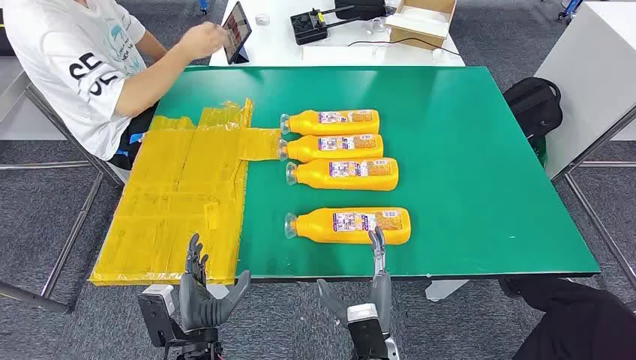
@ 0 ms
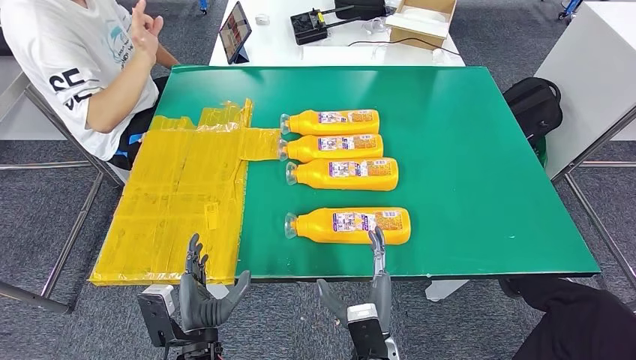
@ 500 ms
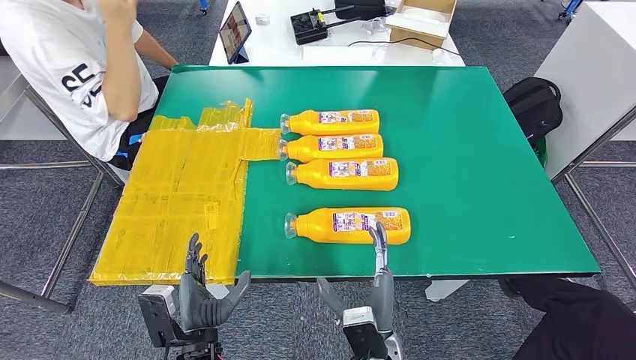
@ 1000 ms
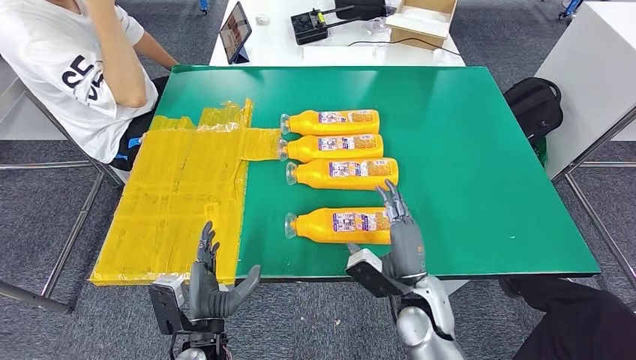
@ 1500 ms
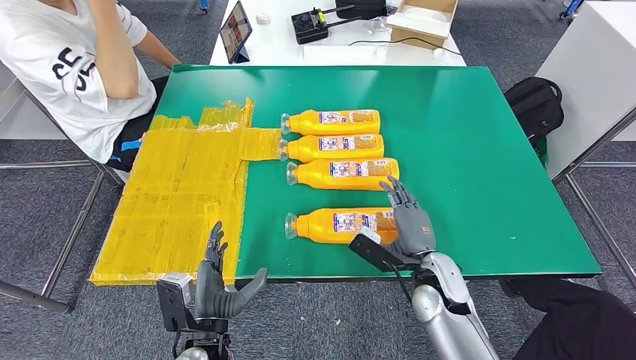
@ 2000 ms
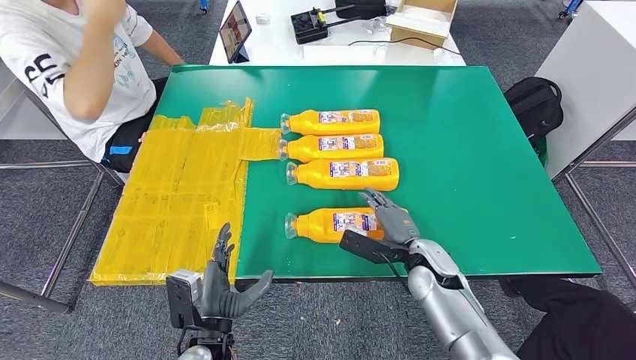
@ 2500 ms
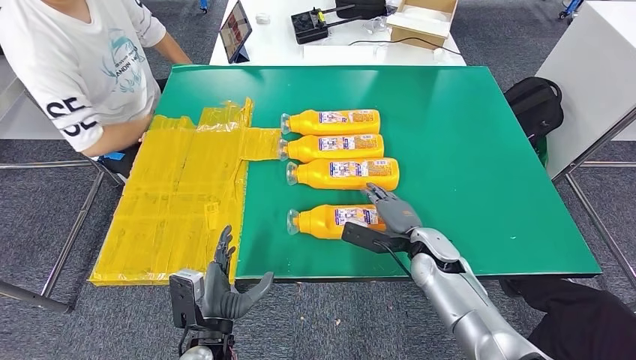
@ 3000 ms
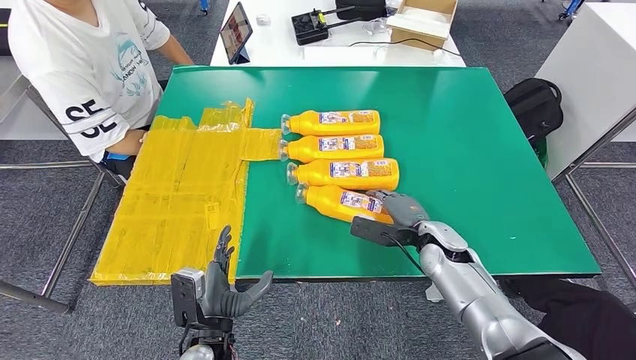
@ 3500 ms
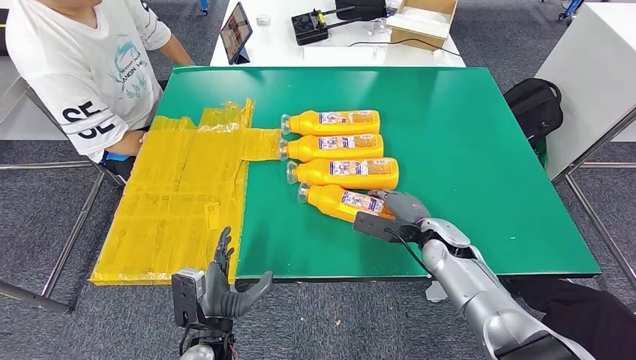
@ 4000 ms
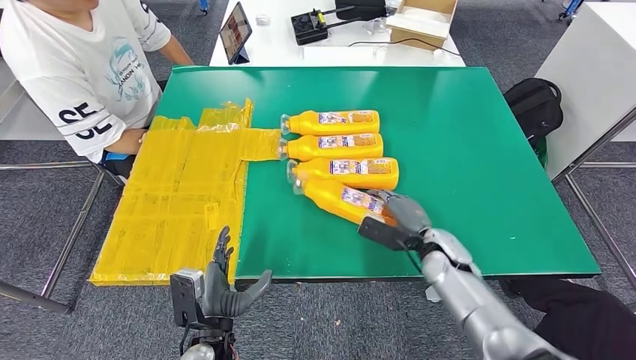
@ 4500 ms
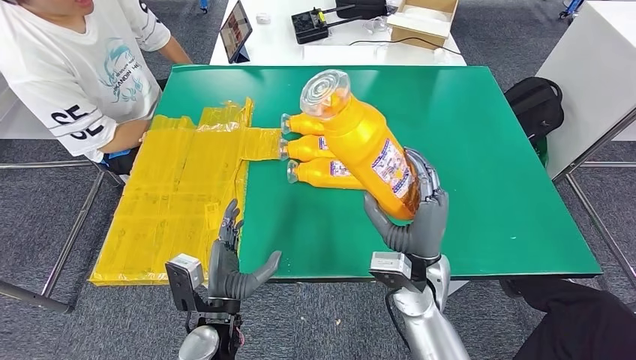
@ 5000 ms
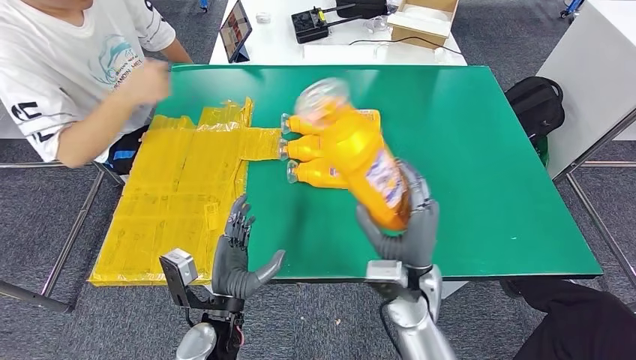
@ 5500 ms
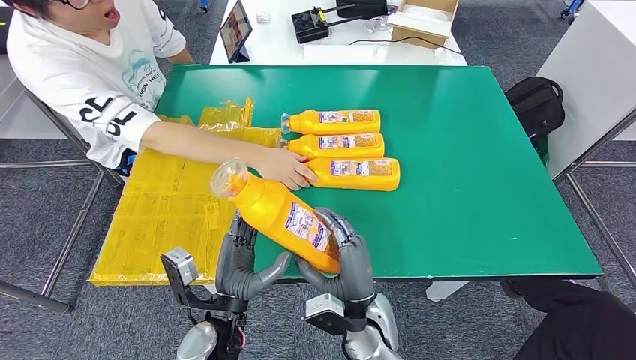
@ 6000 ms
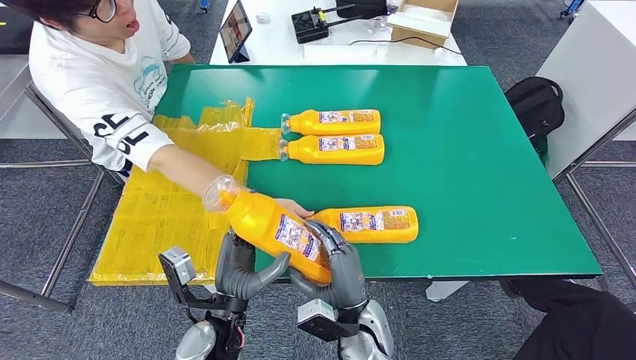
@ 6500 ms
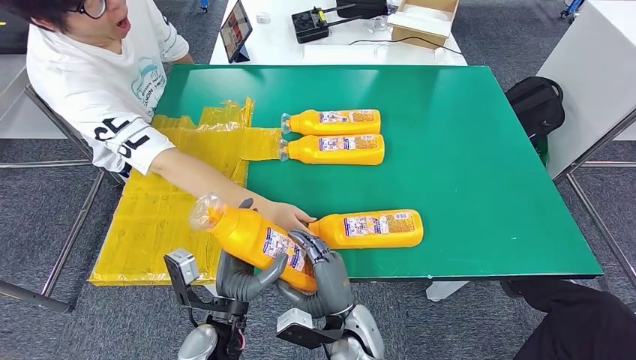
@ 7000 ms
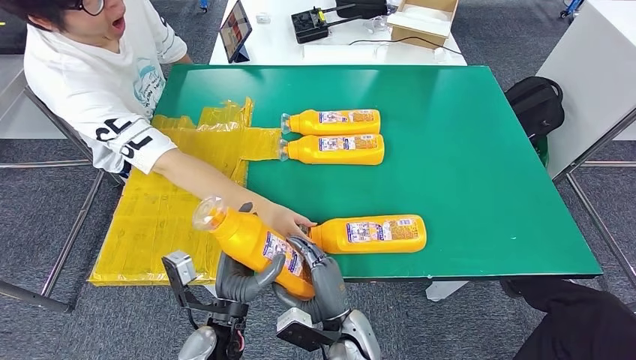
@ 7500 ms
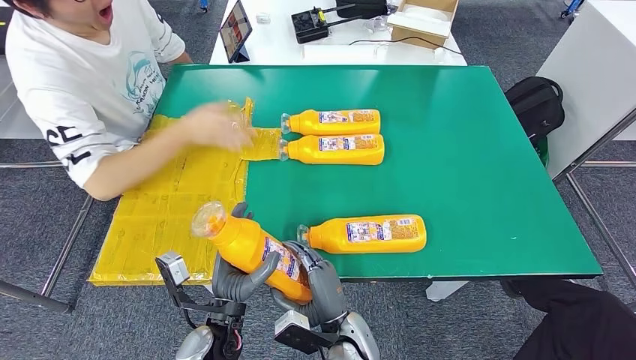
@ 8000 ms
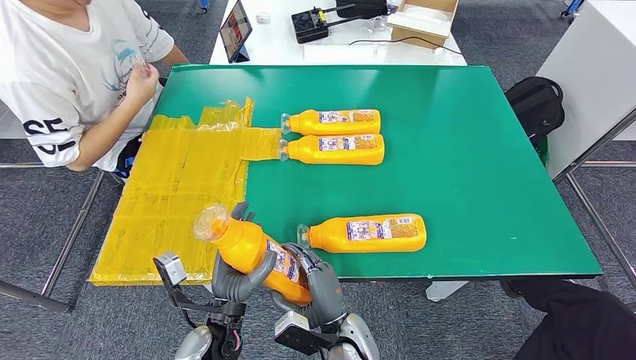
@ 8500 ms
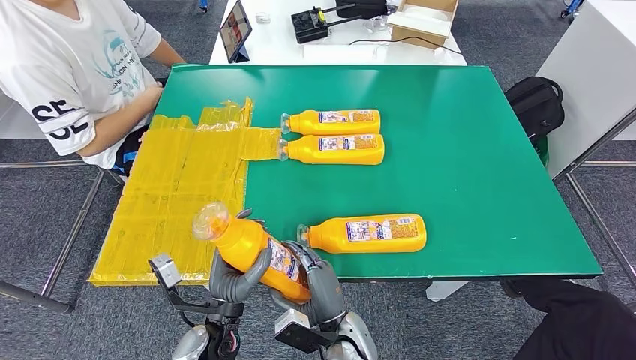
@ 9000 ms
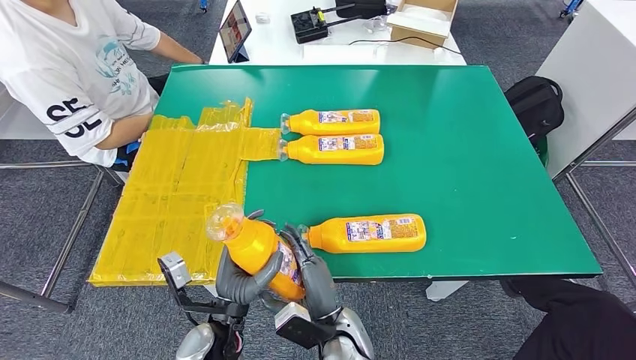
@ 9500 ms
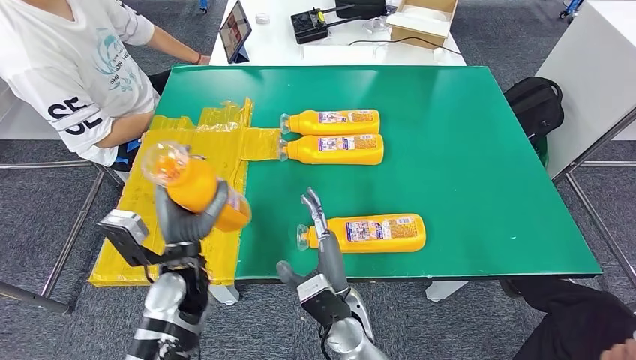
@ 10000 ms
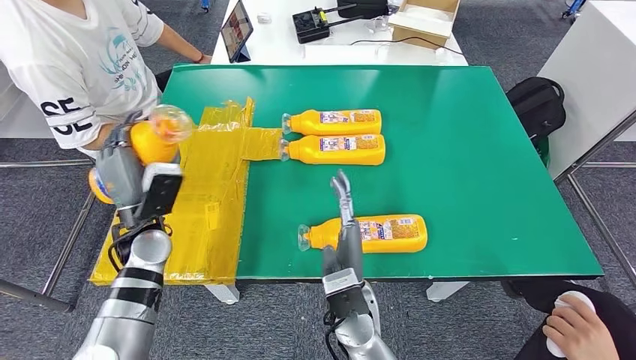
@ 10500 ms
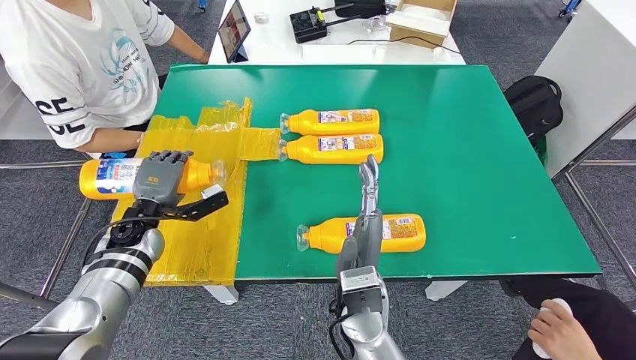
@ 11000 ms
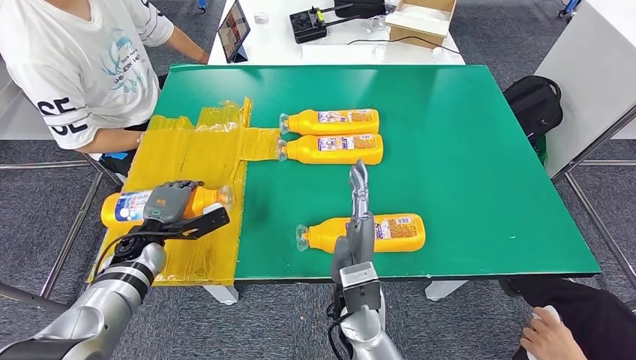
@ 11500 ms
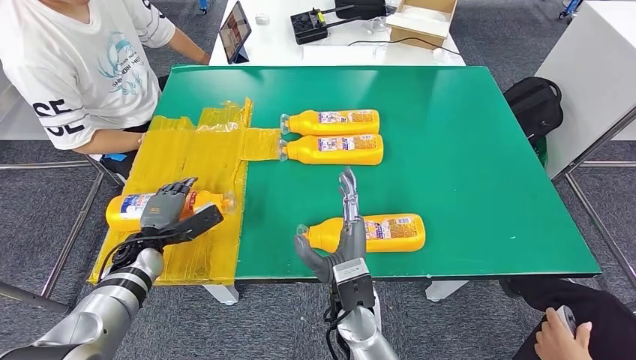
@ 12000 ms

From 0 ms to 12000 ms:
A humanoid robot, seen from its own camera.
Step, from 0 ms to 6000 ms: Take the fast-moving consumer goods bottle from the table.
Step, from 6500 ms to 11500 ms: Flip the fast-moving consumer goods bottle to the front side.
From 2000 ms to 4000 ms: The right hand goes some 10 cm forward.
From 6000 ms to 8000 ms: The right hand shifts by about 5 cm.
From 10000 ms to 12000 ms: The left hand is displaced to the left, downward and forward by some 20 cm.

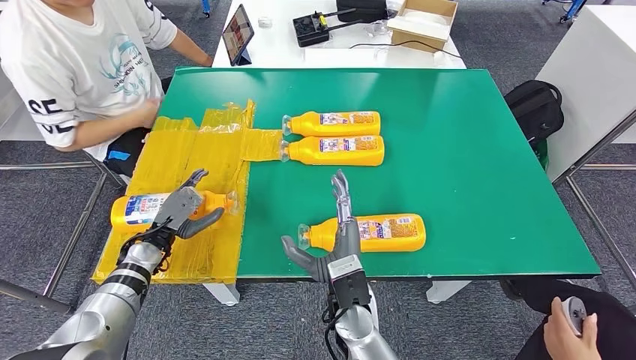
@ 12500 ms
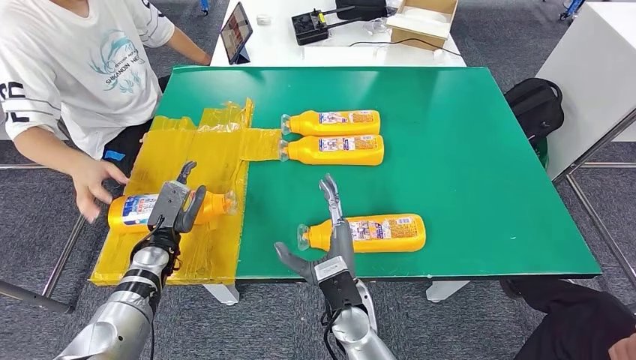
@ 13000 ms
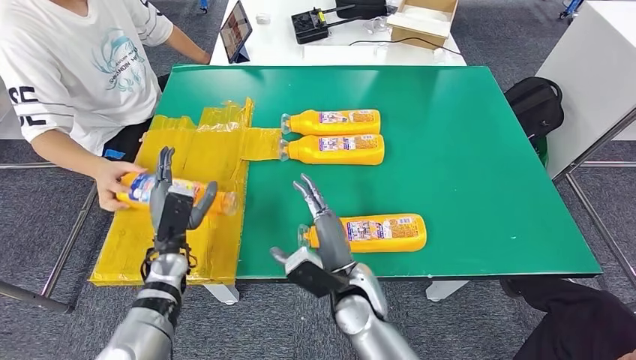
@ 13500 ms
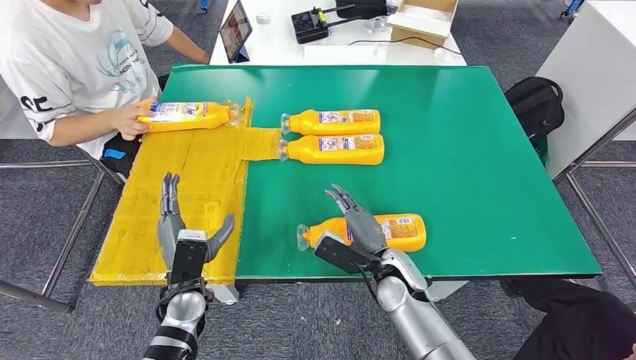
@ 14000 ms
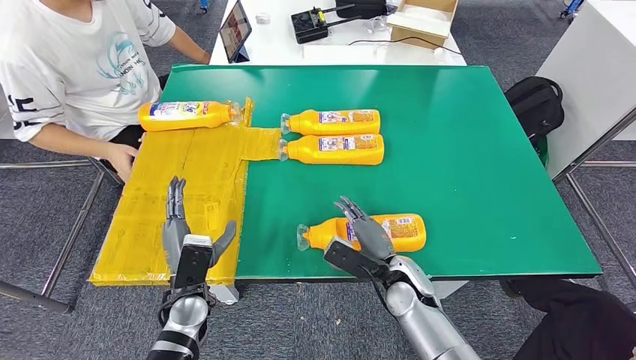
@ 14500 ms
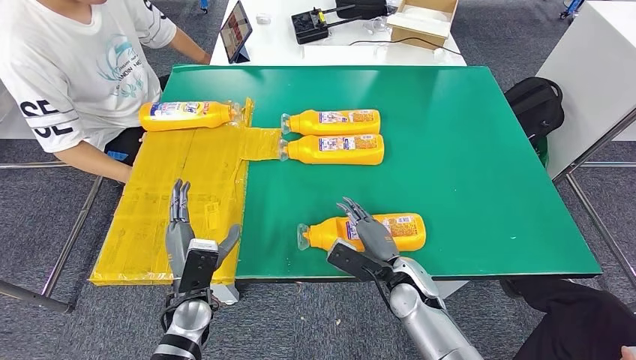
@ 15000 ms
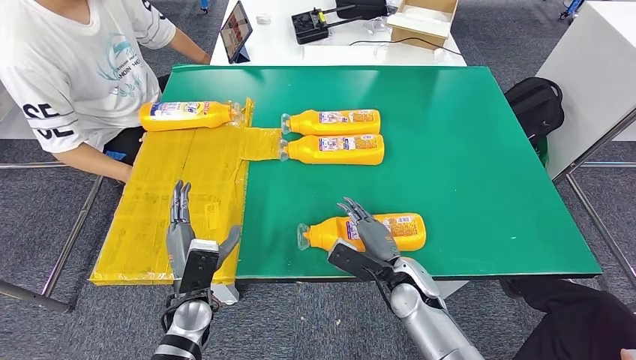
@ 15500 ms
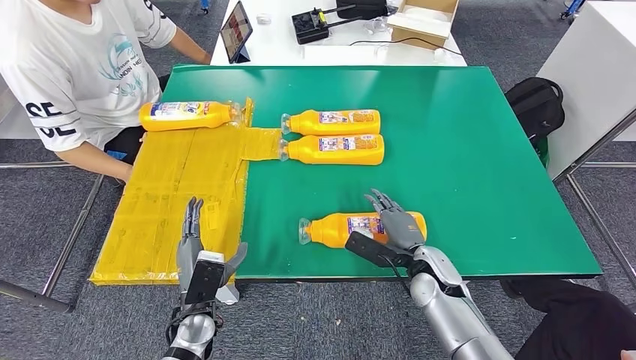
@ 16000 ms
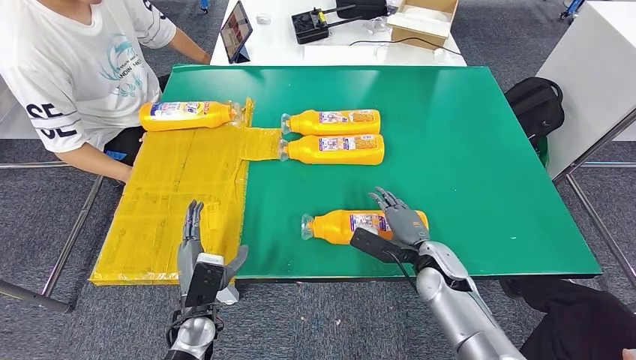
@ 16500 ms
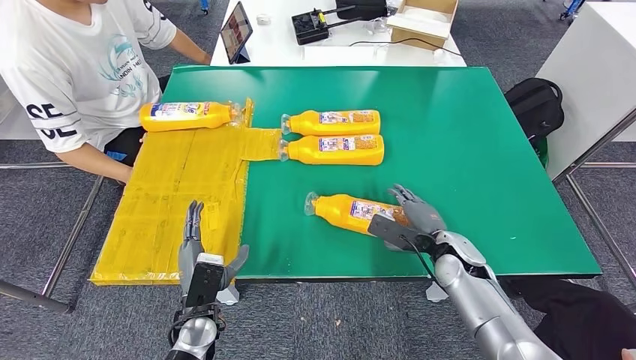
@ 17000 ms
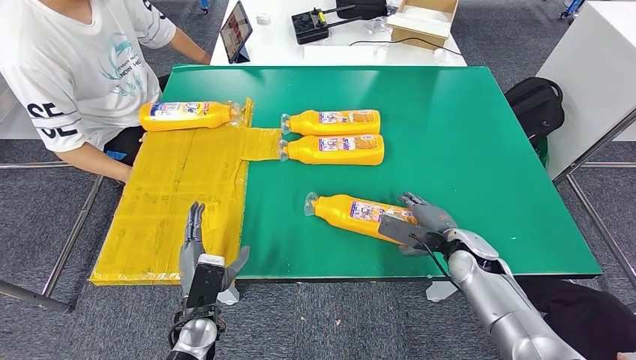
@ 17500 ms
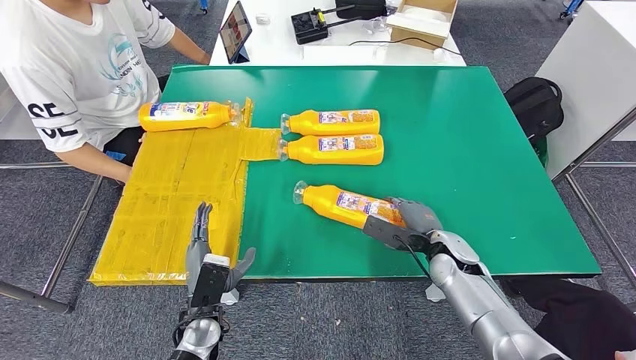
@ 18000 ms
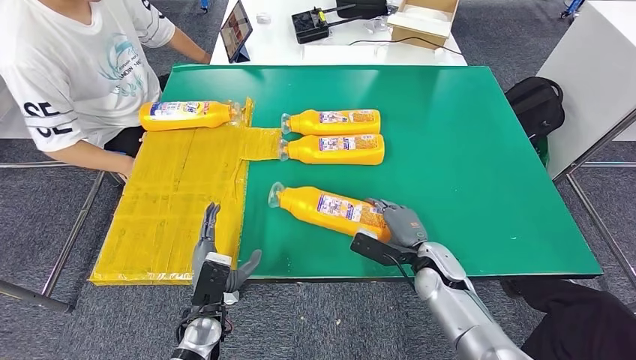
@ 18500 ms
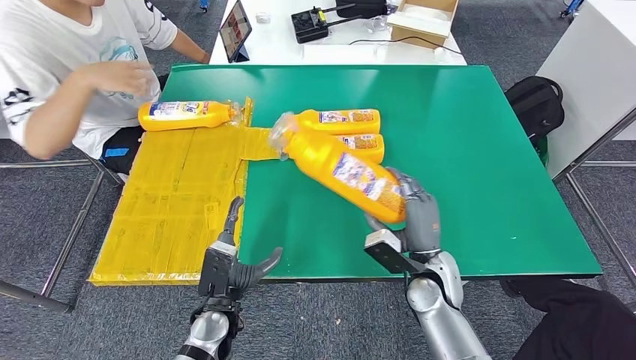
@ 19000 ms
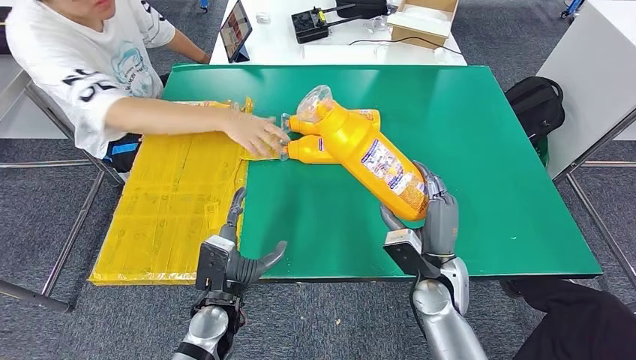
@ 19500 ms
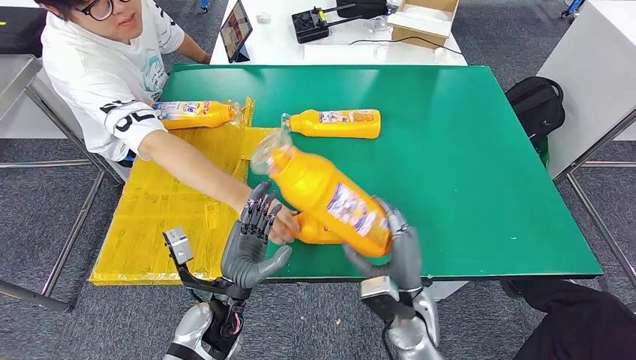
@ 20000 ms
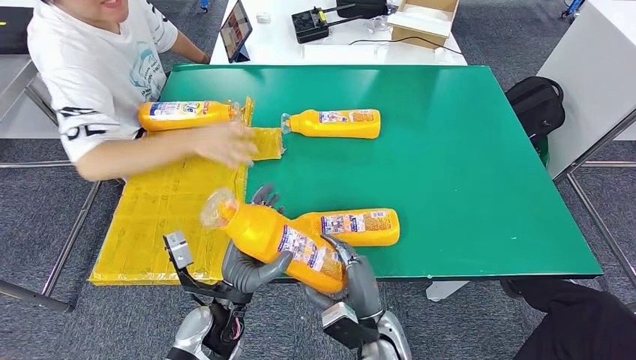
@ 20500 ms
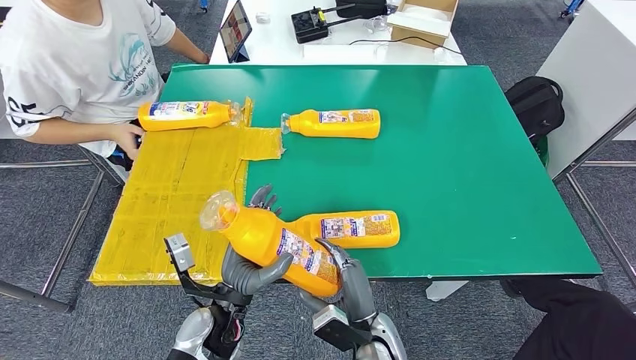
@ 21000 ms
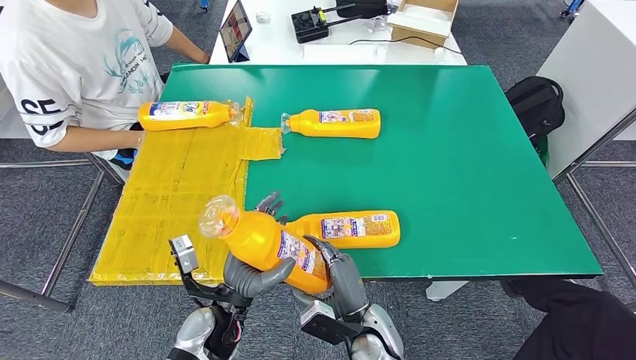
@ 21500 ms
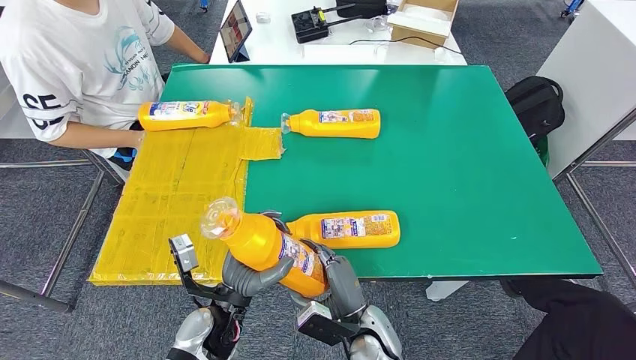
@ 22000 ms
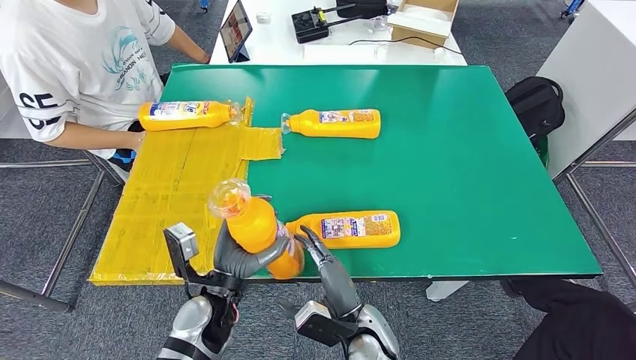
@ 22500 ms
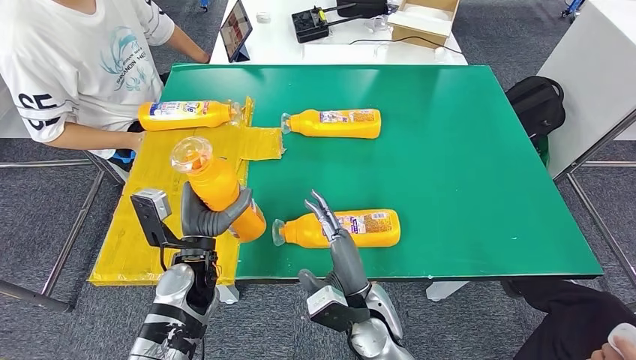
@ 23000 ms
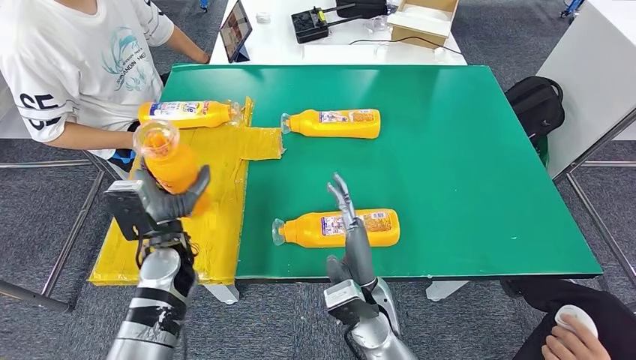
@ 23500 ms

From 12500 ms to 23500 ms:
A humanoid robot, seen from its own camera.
Step, from 12500 ms to 20500 ms: Pick up the fast-moving consumer goods bottle from the table.
From 14500 ms to 16000 ms: The right hand is displaced to the right by approximately 5 cm.
From 21500 ms to 23500 ms: The left hand is displaced forward, to the left and upward by about 15 cm. Meanwhile the right hand moves upward, roughly 10 cm.
